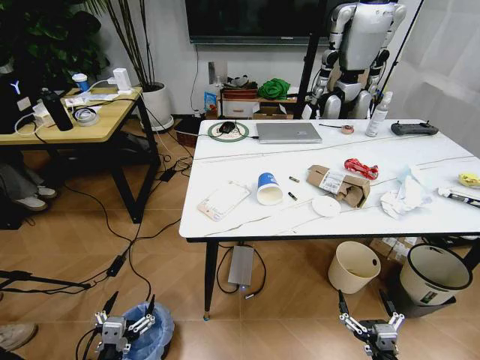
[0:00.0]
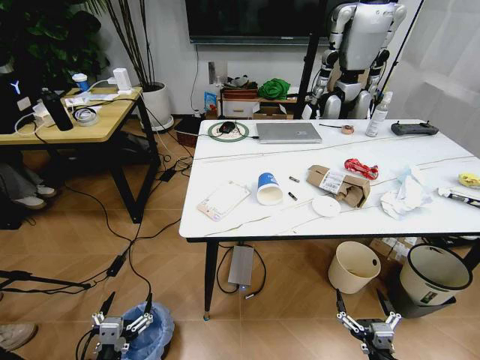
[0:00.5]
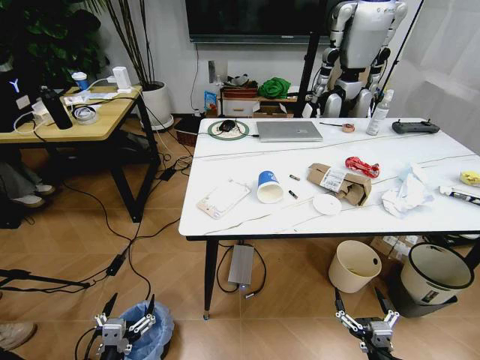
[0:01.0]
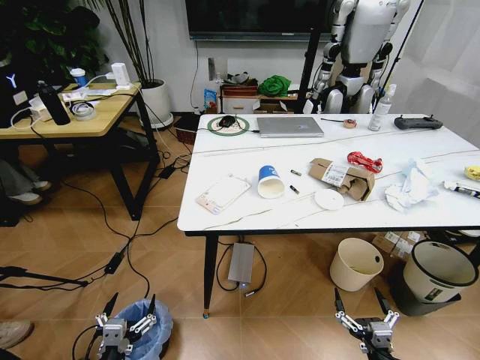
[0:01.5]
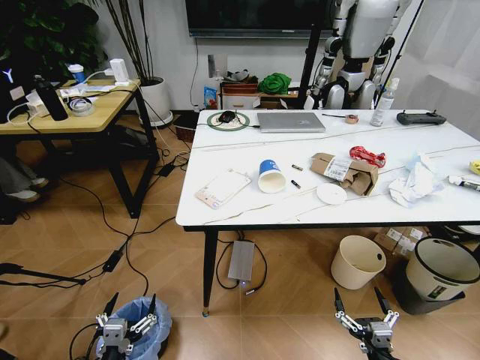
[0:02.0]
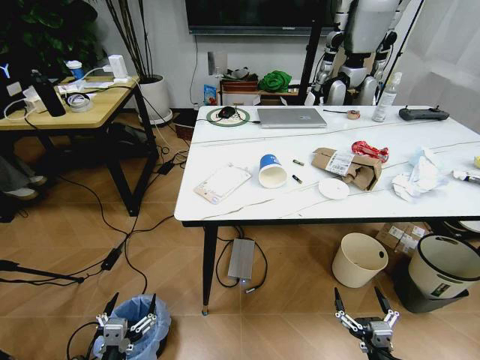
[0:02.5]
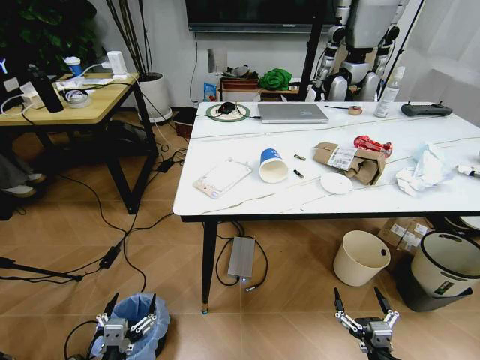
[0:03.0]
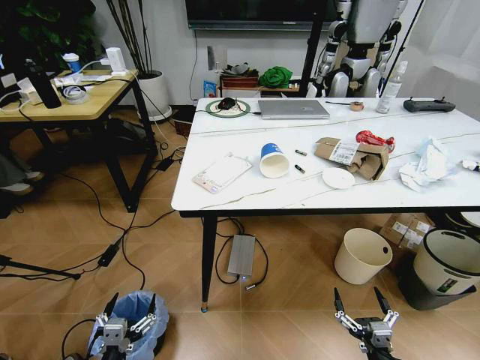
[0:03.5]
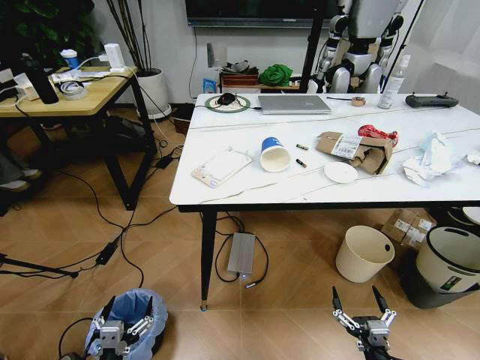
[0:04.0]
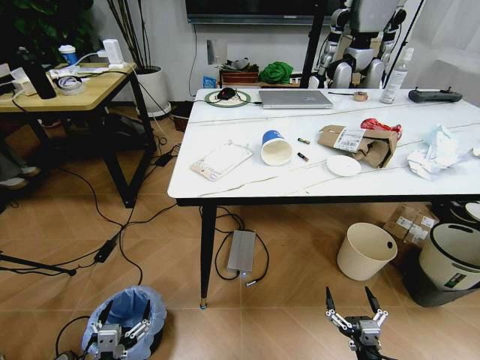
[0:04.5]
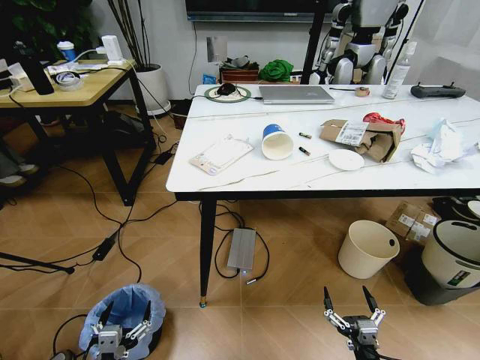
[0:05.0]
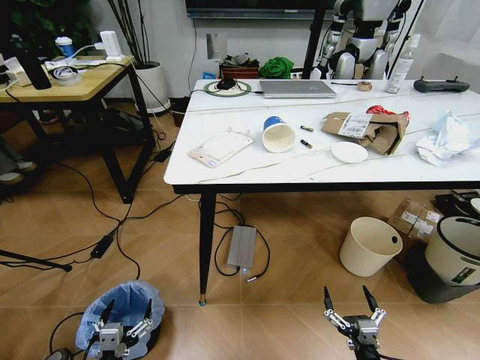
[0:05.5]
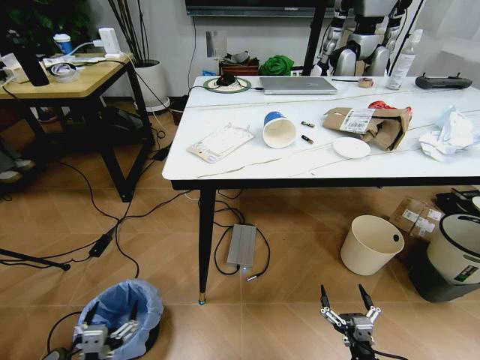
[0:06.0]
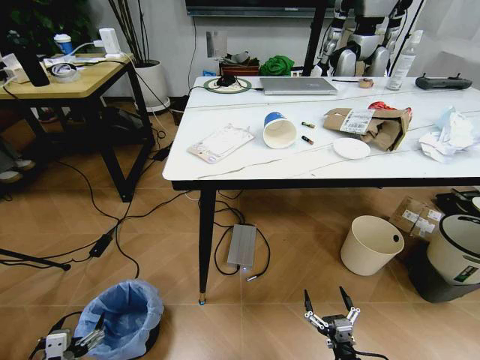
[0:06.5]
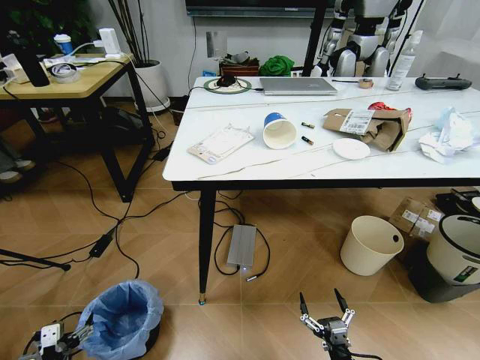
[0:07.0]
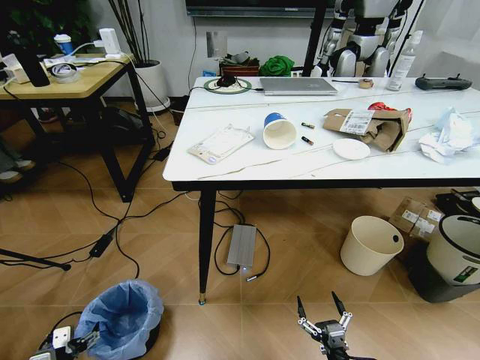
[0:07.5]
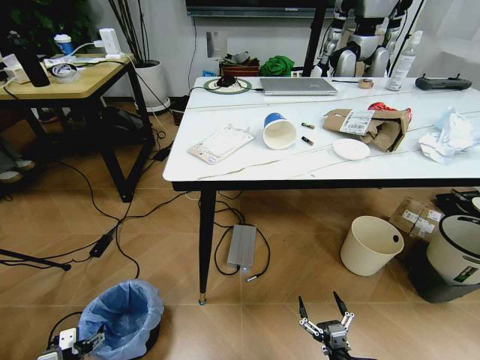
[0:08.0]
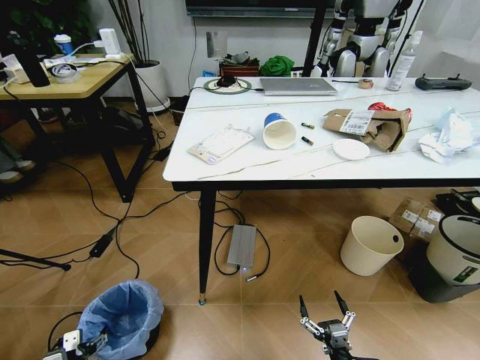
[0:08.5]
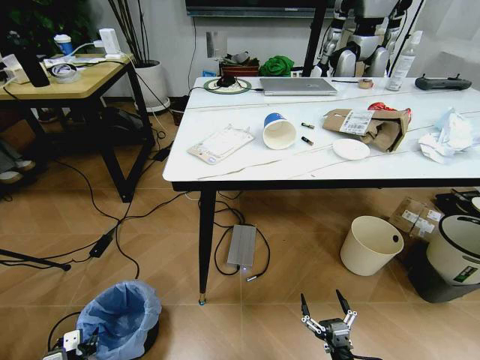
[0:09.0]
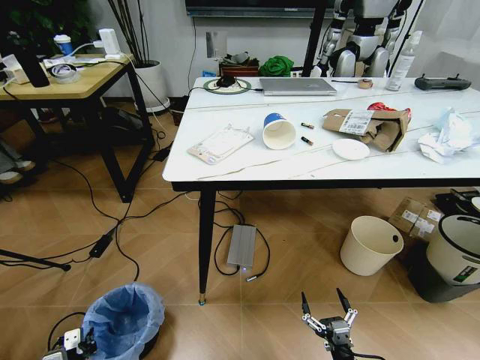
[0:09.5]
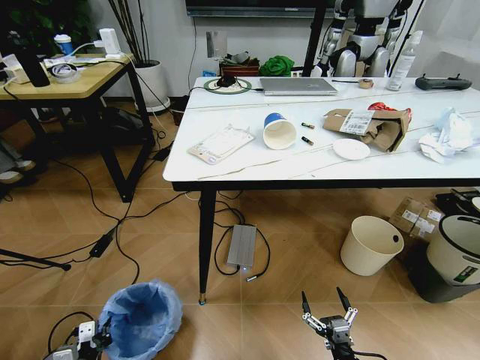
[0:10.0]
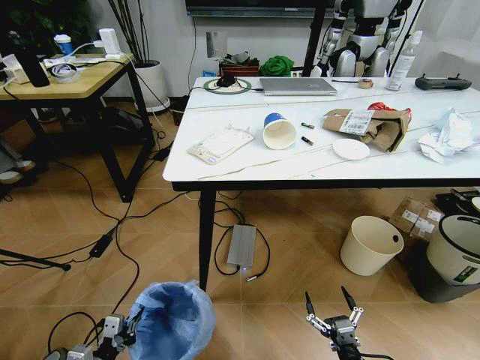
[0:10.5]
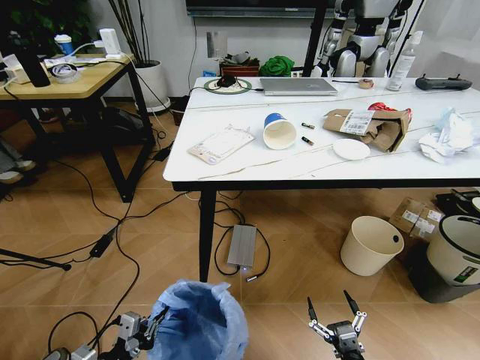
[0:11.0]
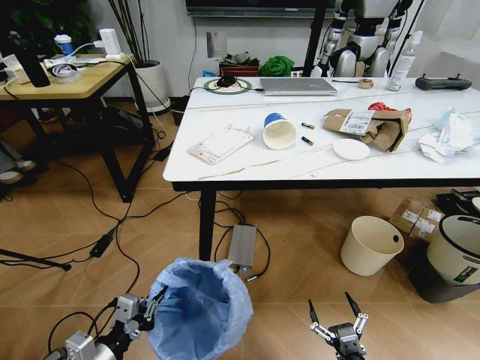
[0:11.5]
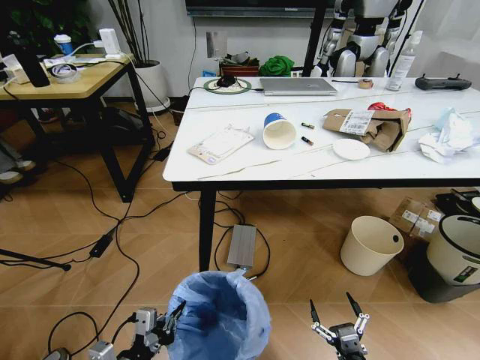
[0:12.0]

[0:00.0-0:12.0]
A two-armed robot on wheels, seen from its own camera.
Task of the whole recording: Pick up the trash bin and place the trash from the table into it.
0:06.0 to 0:08.0: The left gripper moves to the left, downward and forward, approximately 15 cm.
0:08.0 to 0:10.0: The left gripper closes.
0:10.0 to 0:12.0: The left gripper shifts about 20 cm upward and to the right.

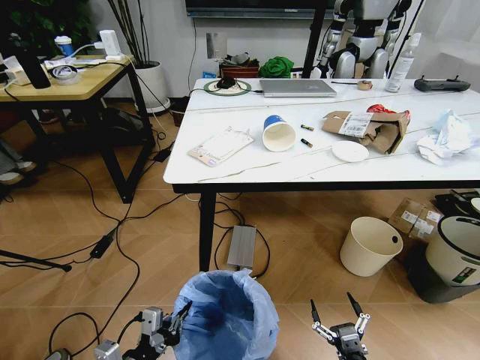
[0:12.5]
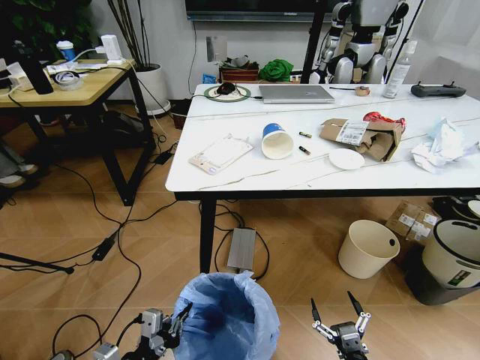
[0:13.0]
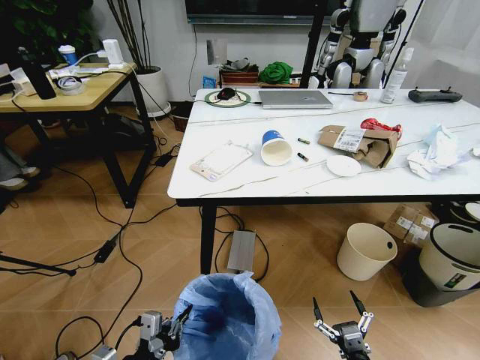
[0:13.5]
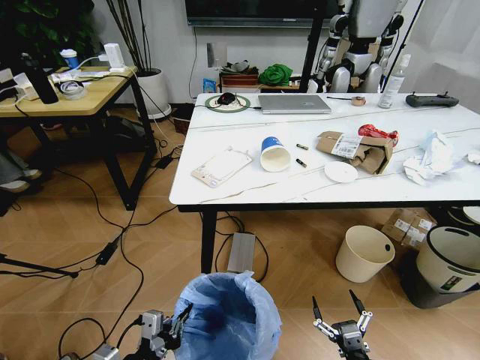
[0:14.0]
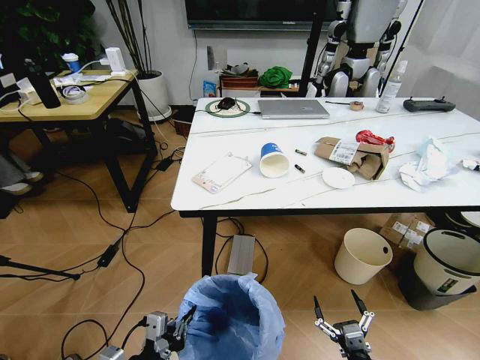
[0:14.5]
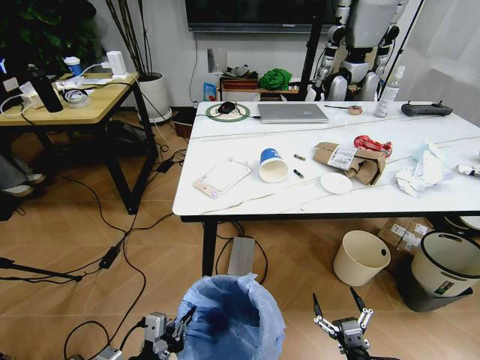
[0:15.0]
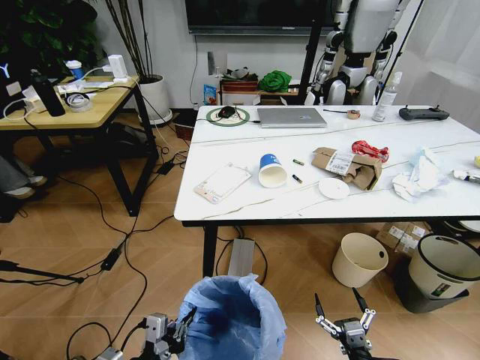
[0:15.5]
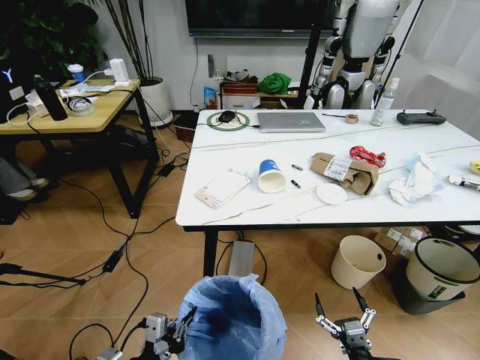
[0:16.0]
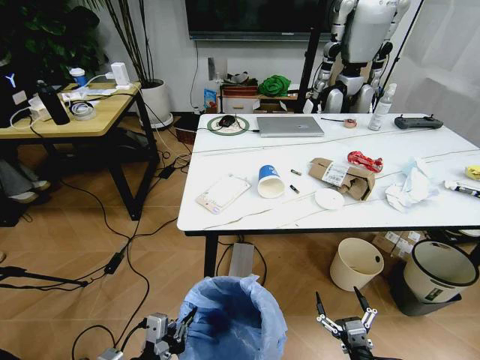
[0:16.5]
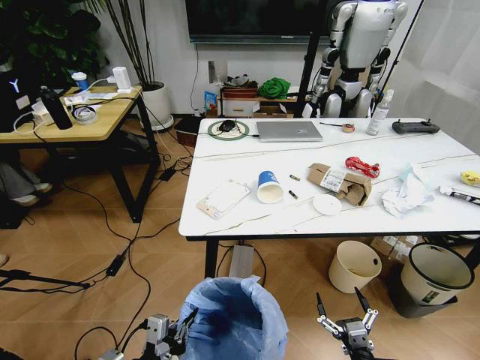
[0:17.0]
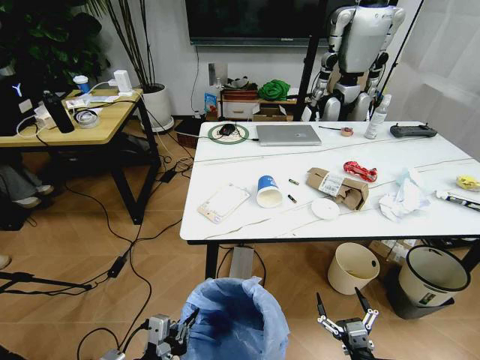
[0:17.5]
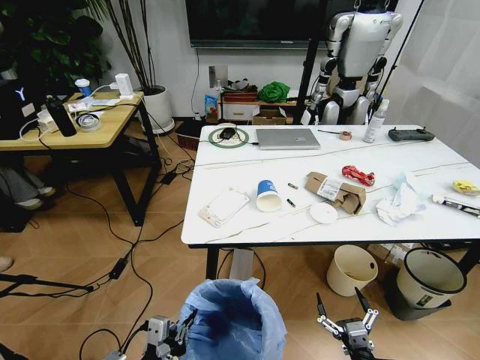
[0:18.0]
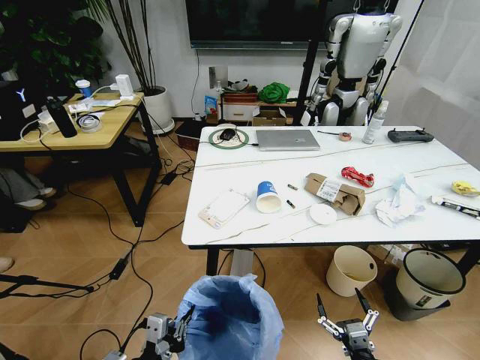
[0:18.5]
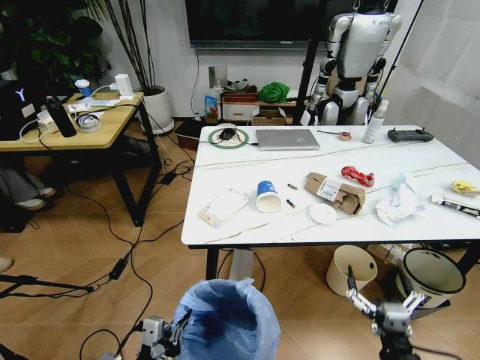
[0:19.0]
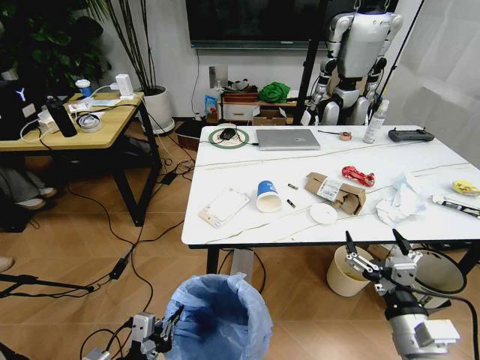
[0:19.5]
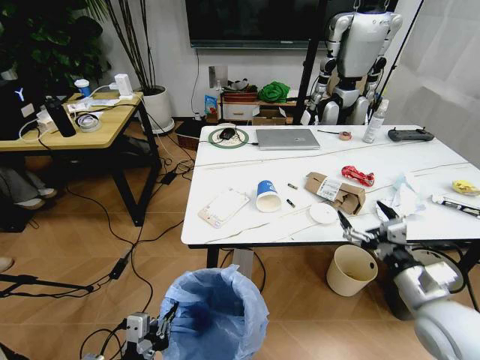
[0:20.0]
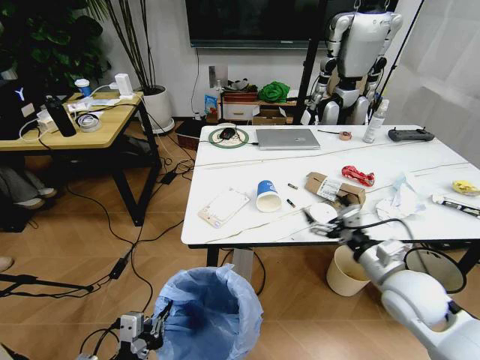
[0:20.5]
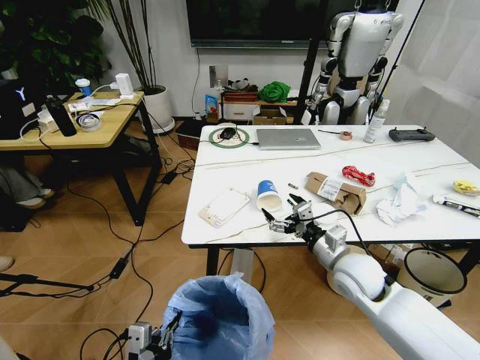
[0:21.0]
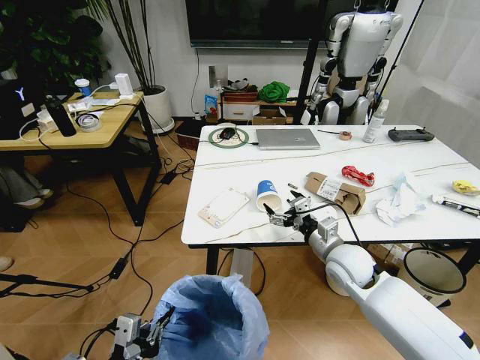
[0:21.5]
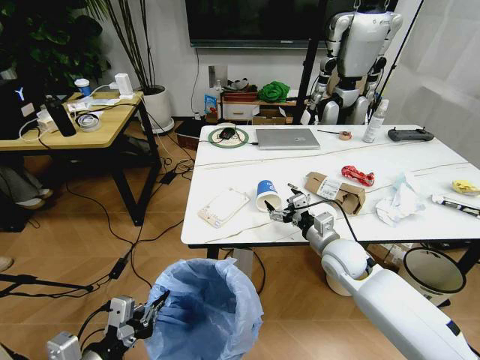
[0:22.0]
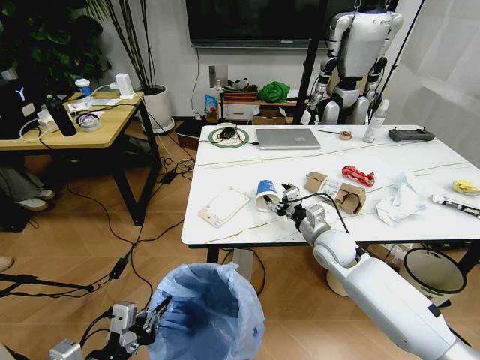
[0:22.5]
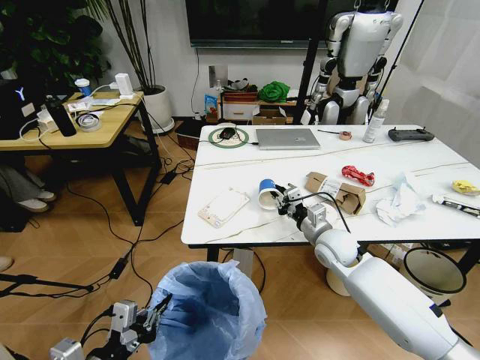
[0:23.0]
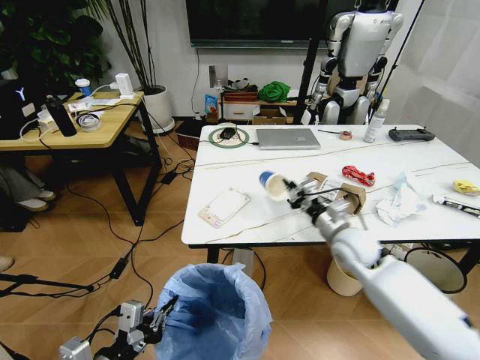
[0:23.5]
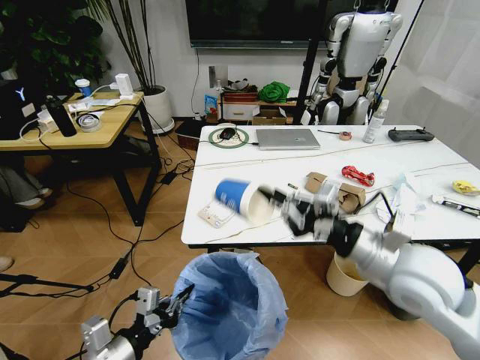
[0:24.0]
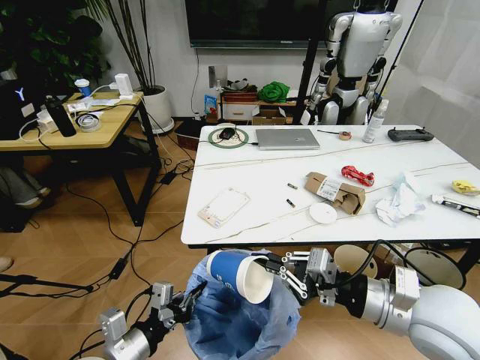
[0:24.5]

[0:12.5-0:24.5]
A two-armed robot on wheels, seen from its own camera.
Task of the whole recording: Pick up the trash bin and place the trash from the table into it.
0:18.5 to 0:20.5: The right gripper shifts roughly 30 cm forward and upward.
0:20.5 to 0:22.5: The left gripper ends up approximately 5 cm from where it was. Meanwhile the right gripper shifts some 15 cm forward, to the left and downward.
0:22.5 to 0:24.5: The left gripper moves forward, approximately 5 cm. The right gripper goes some 25 cm backward and upward, and closes.

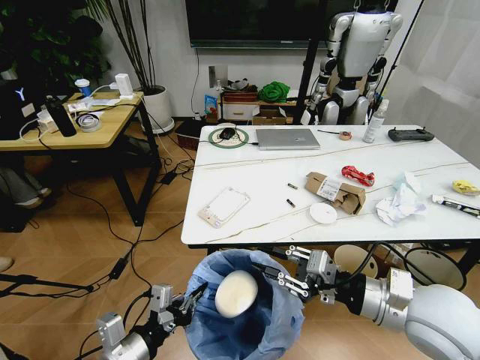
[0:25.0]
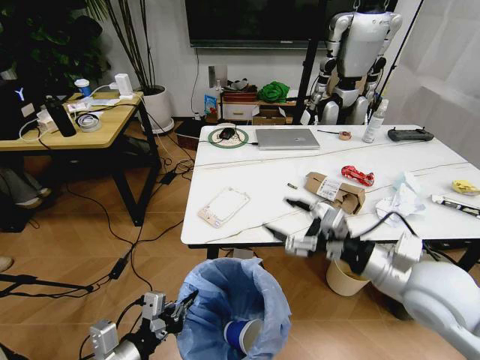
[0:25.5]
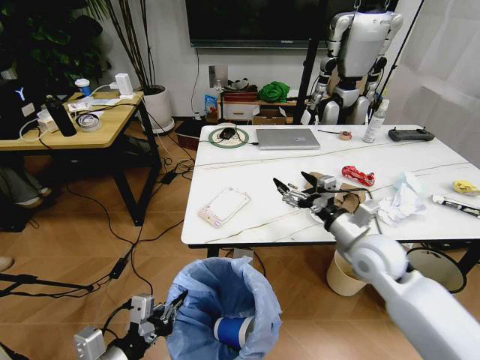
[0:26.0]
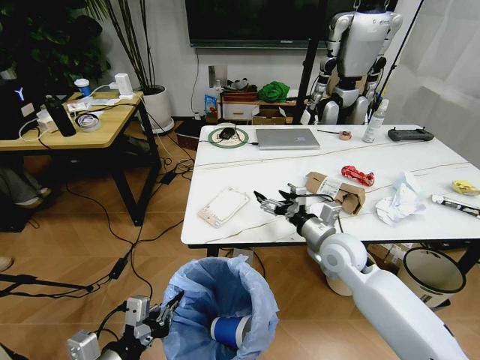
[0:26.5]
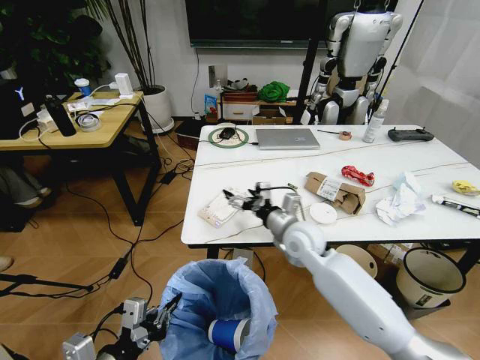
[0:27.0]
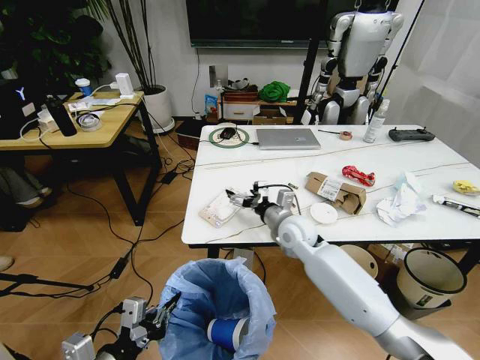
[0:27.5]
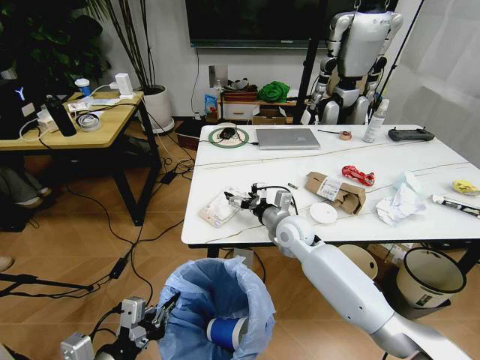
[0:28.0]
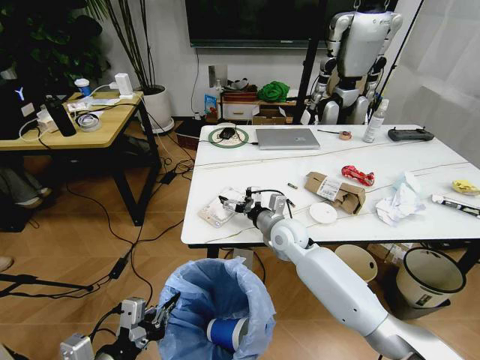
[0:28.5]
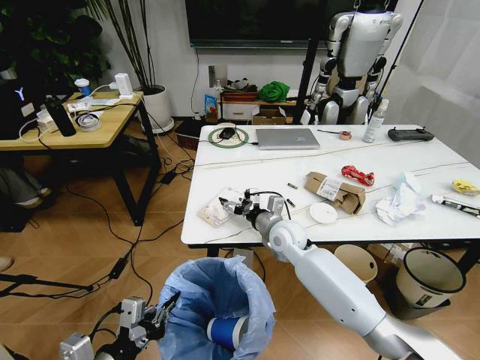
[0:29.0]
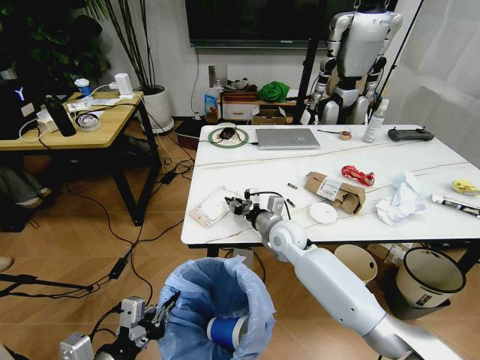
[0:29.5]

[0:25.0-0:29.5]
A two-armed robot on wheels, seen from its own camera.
Task of the whole recording: Pick up the trash bin and place the trash from the table into it.
0:25.0 to 0:27.0: The right gripper is displaced forward, to the left and downward by roughly 25 cm, and opens up.
0:27.0 to 0:29.5: The right gripper ends up some 5 cm from where it was, and closes its fingers.
